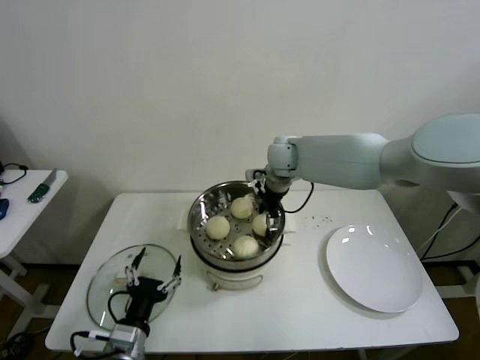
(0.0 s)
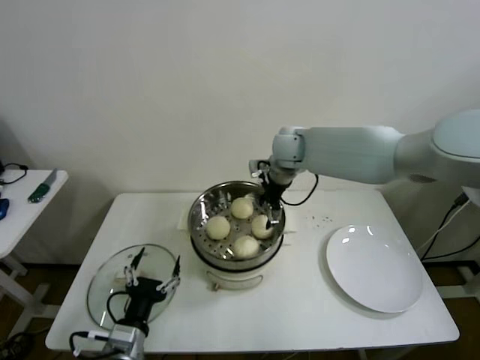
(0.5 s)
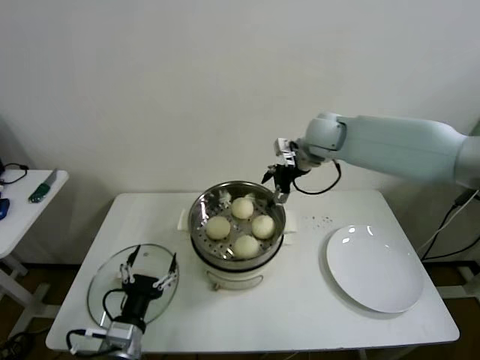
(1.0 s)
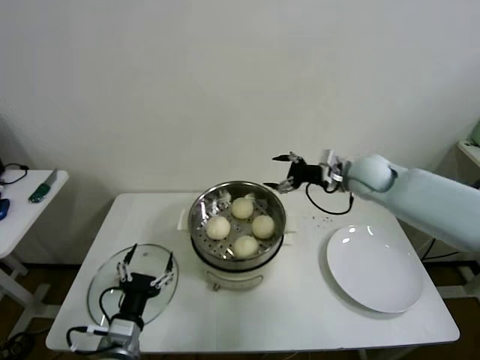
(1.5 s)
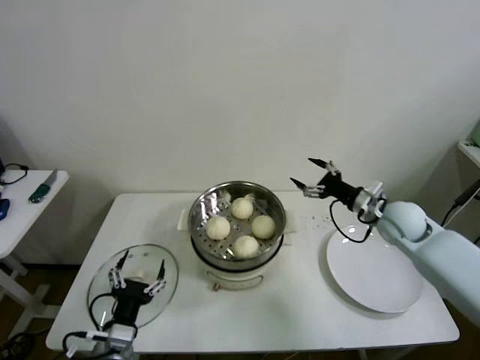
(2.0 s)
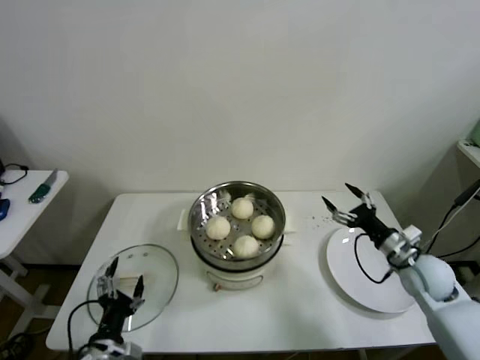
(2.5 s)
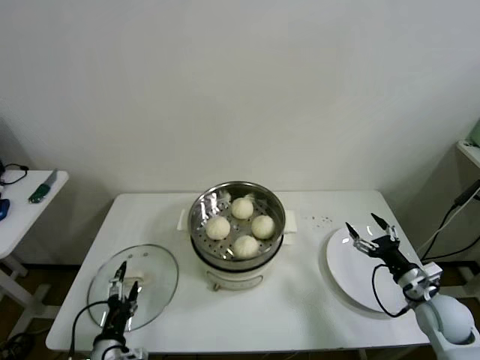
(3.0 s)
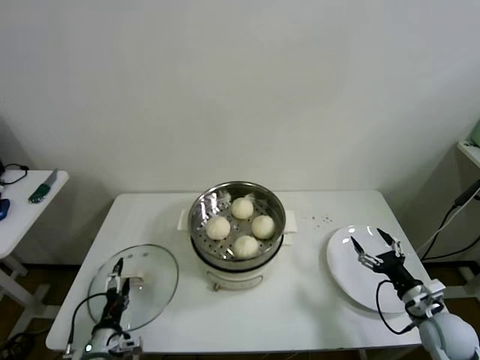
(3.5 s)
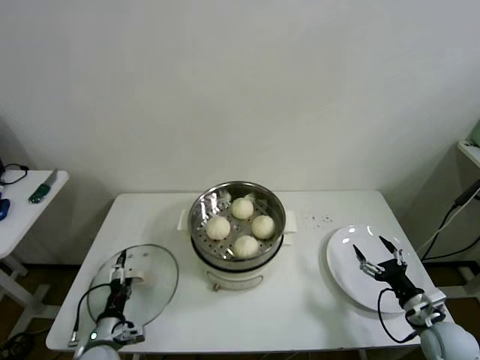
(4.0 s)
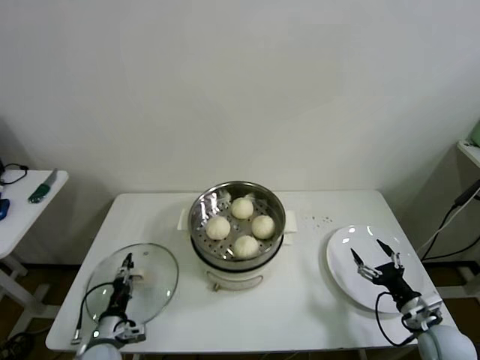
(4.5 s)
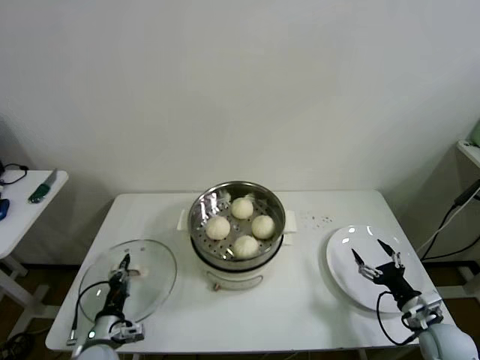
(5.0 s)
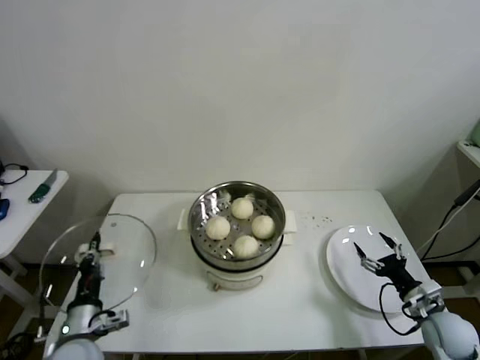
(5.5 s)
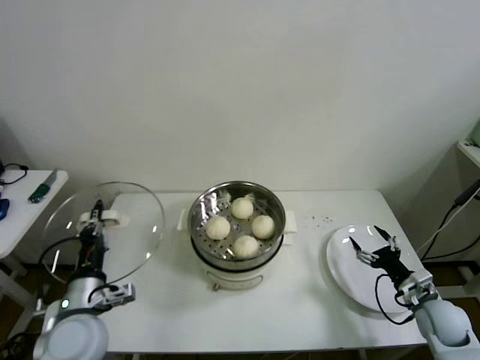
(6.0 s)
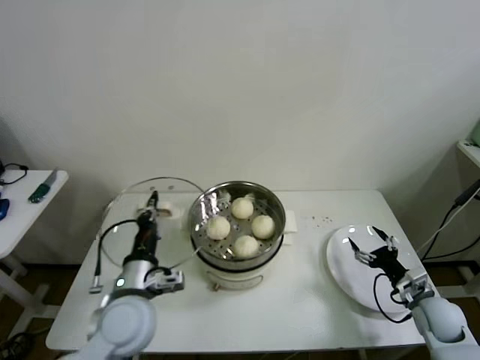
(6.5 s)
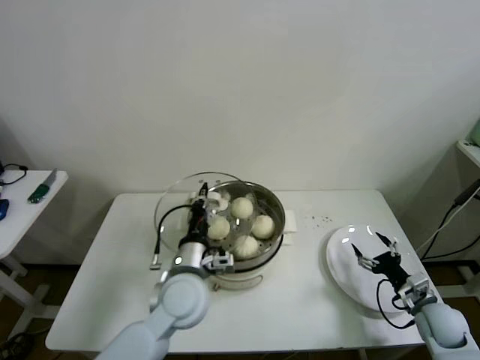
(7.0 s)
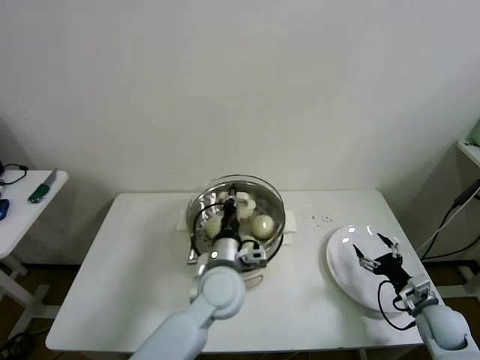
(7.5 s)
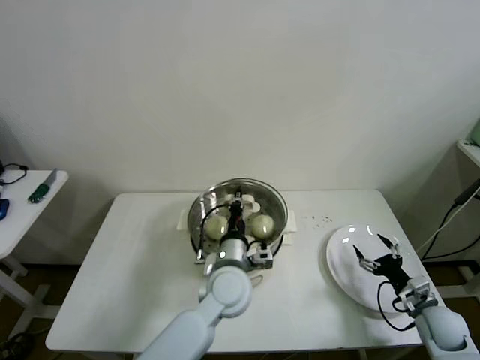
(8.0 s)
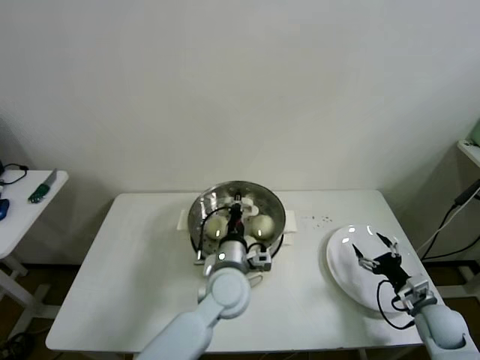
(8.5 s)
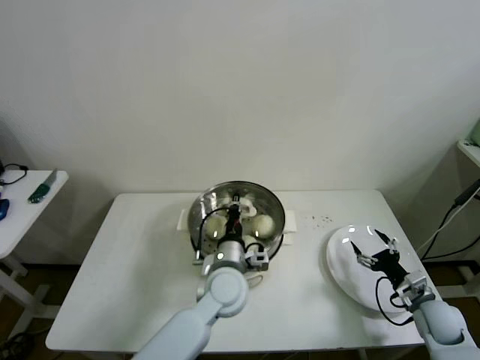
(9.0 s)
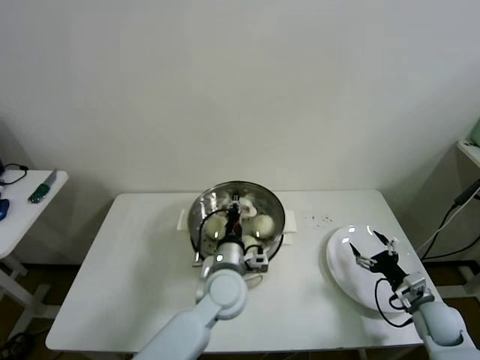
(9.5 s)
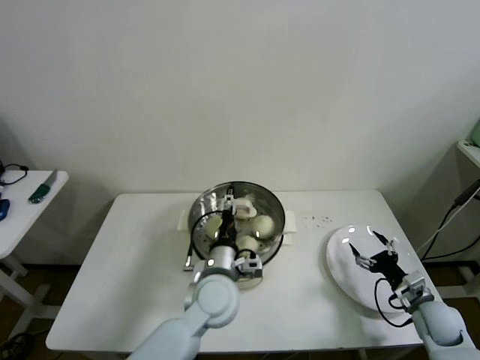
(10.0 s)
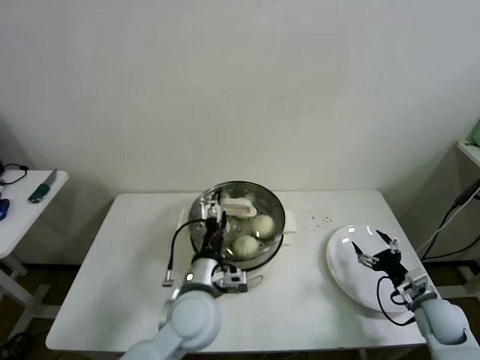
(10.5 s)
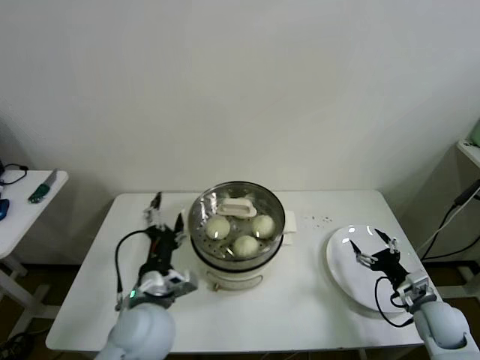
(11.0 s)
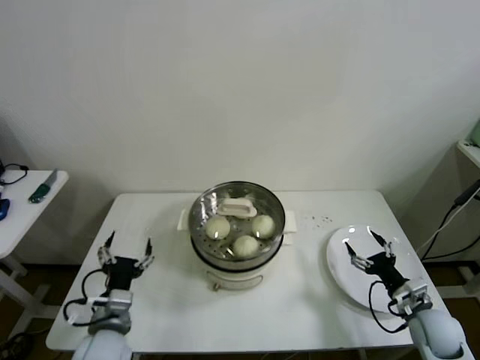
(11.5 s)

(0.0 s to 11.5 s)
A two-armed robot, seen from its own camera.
Step, 0.5 s - 4.5 s: Grasp the pot lid with left gripper.
Step, 5.0 s - 9.5 s: Place the pot lid on the steamer with left gripper.
0.0 s - 2.0 s: The right gripper heads to the right and backward, covering some 30 cm, and opens up.
2.0 s - 4.0 s: The left gripper shifts some 15 cm downward, to the left and forward. Meanwhile the right gripper goes approximately 25 cm backward and downward.
4.0 s - 6.0 s: The left gripper travels upward by some 20 cm, and closes.
6.0 s - 7.5 s: The left gripper goes some 25 cm to the right and forward.
7.5 s - 9.5 s: The grippers make only small movements.
9.5 s - 11.5 s: The left gripper goes about 25 cm to the left and backward, and opens.
